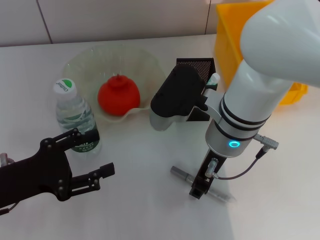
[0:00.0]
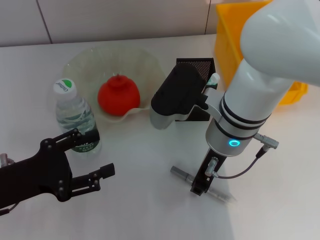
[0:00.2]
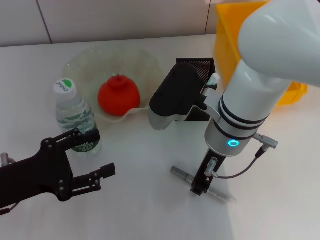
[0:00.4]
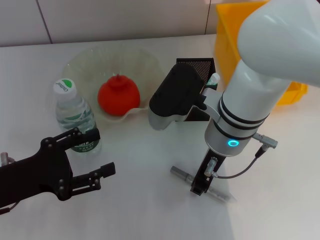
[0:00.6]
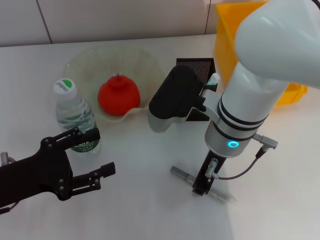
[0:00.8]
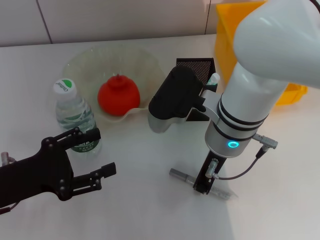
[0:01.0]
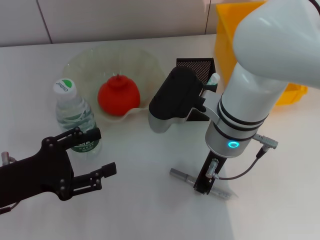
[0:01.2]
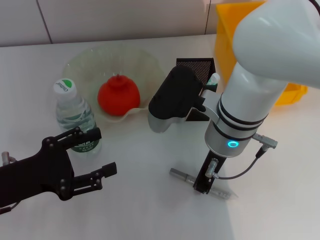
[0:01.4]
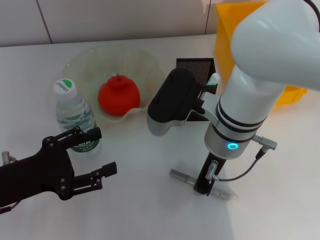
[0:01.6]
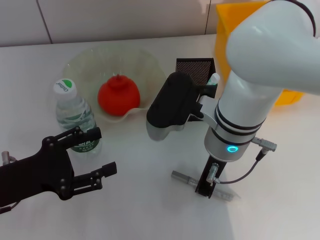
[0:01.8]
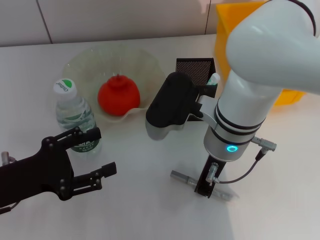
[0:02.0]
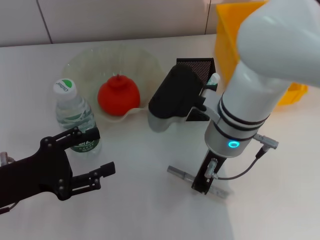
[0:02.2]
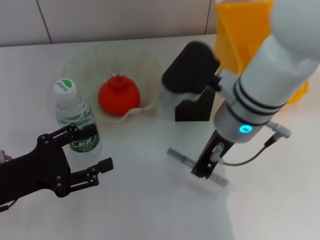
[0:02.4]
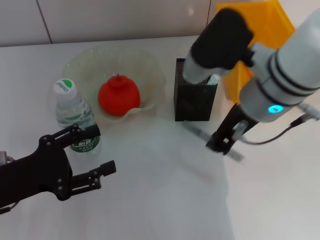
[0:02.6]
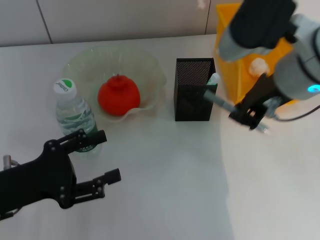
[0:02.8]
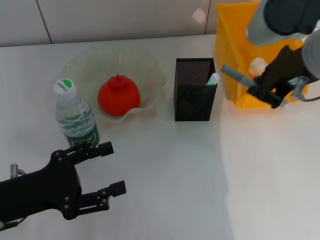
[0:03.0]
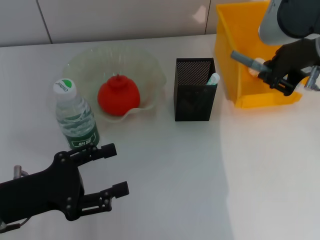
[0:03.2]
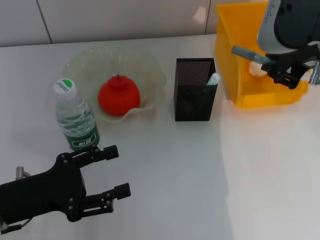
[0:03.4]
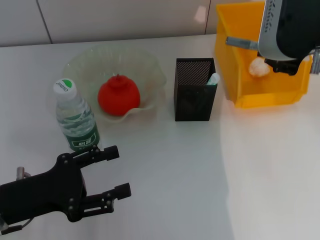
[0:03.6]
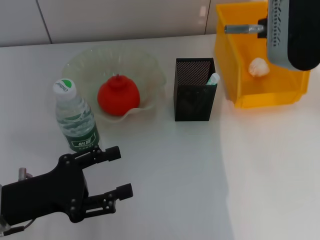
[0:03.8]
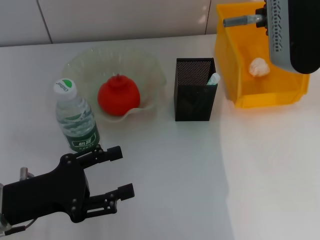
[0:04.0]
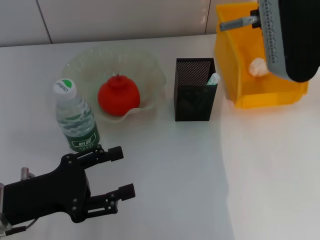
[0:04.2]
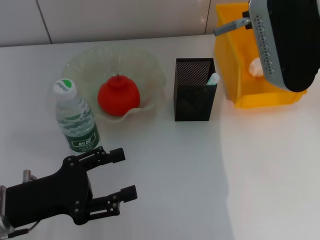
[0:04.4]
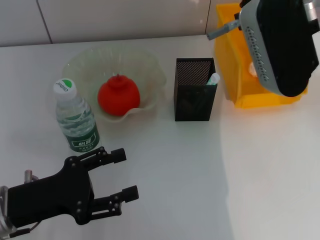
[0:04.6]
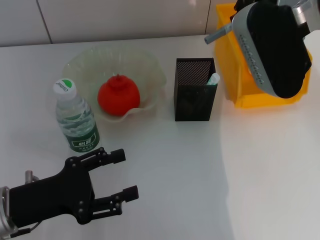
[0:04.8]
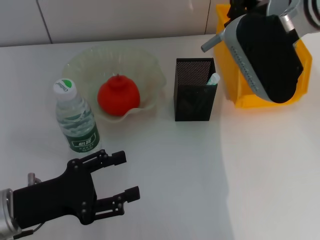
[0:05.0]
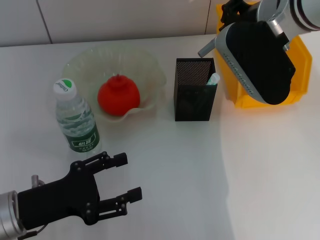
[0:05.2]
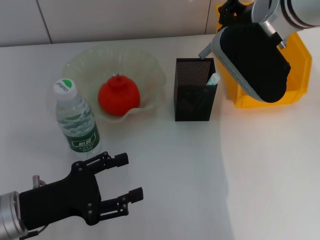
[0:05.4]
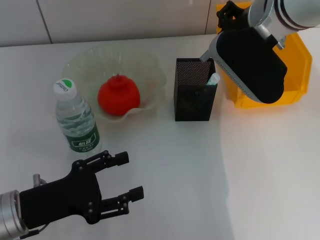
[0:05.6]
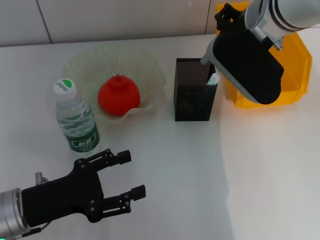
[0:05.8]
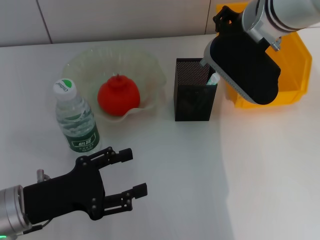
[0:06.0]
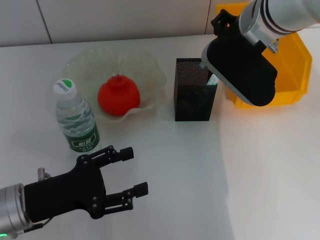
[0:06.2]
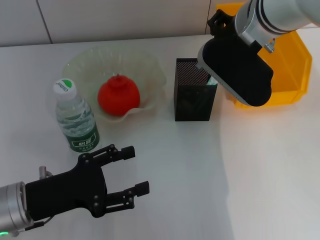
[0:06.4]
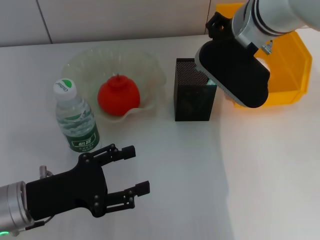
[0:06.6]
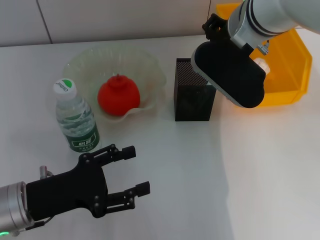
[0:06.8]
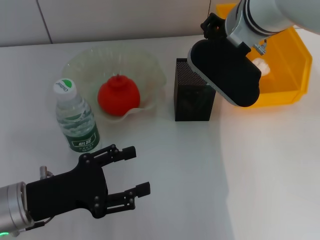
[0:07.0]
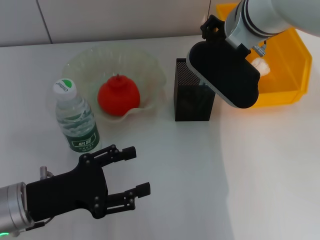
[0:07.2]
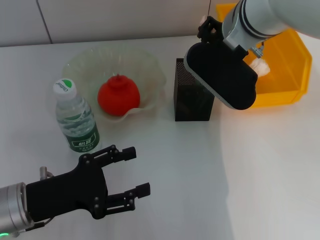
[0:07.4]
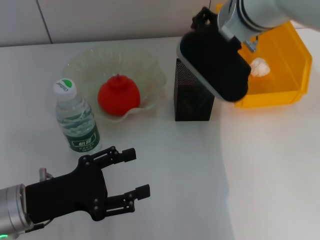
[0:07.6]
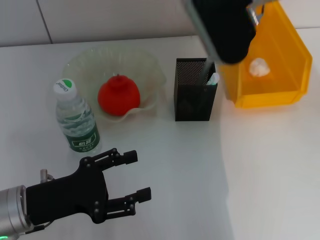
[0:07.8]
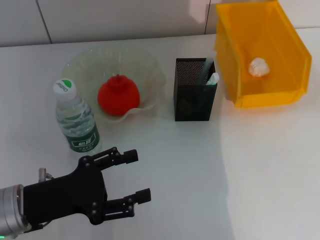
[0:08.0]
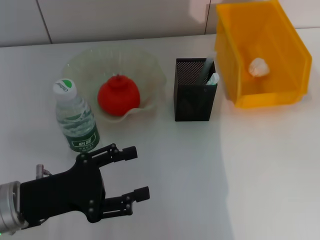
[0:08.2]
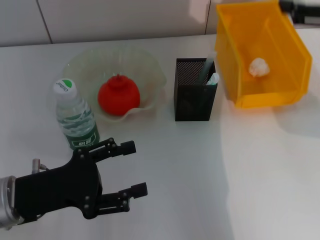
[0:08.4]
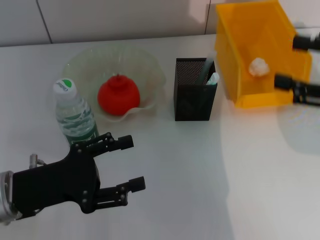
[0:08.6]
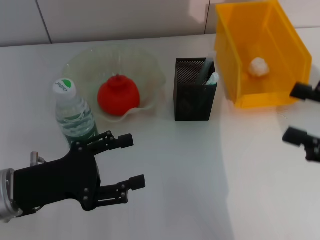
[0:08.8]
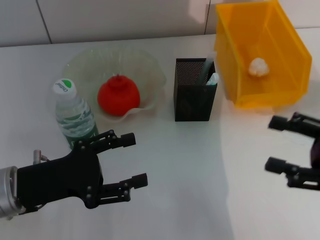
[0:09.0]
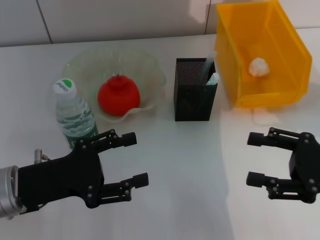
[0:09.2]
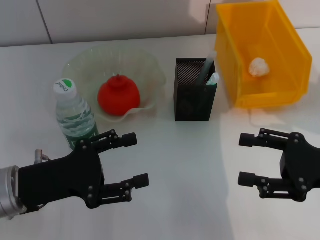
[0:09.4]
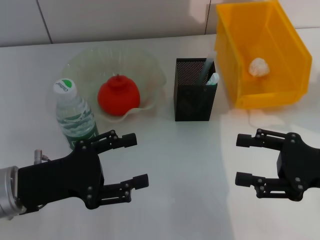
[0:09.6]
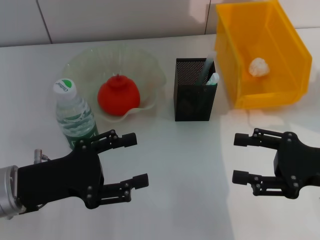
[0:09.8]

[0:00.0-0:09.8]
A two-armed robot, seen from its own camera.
Step, 0:01.8 to 0:07.4: Place the gray glue into the pen holder with the right hand.
0:00.0 to 0:01.4: The right gripper closes up.
0:01.4 to 0:02.8: The right gripper moves upward and to the right, some 15 cm.
0:02.8 to 0:04.2: The right gripper changes place by approximately 5 cm.
0:04.2 to 0:05.6: The right gripper changes place by approximately 5 cm.
0:05.6 to 0:07.0: The grippers make only small movements.
0:07.0 to 0:08.4: The right gripper heads to the right and backward, covering approximately 20 cm, and opens its fingers.
0:08.4 to 0:09.8: The right gripper travels downward by about 20 cm.

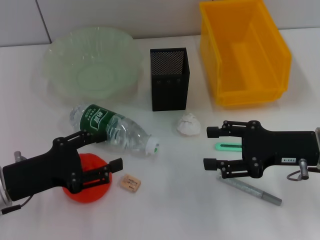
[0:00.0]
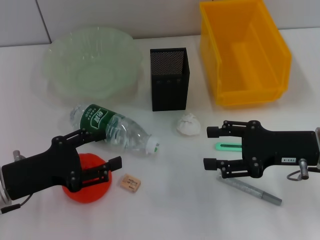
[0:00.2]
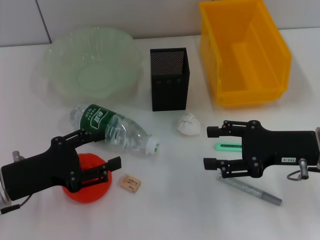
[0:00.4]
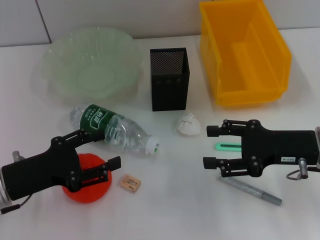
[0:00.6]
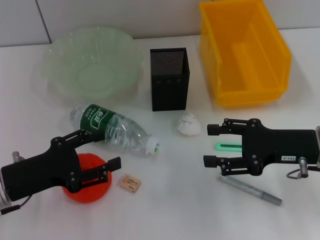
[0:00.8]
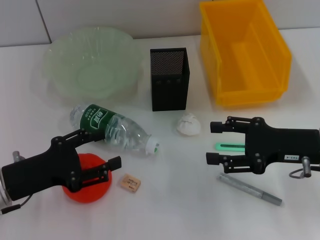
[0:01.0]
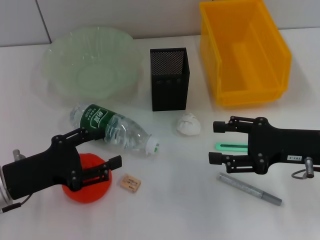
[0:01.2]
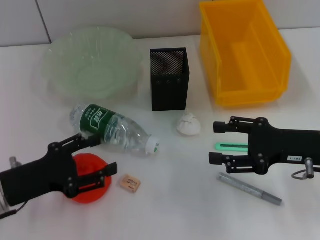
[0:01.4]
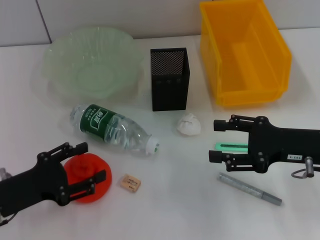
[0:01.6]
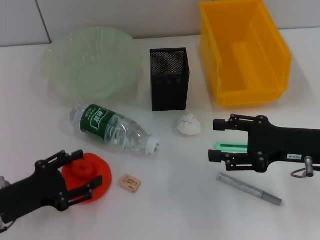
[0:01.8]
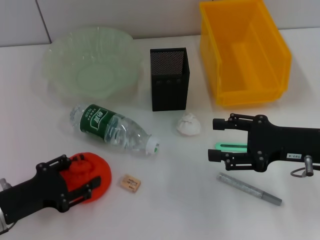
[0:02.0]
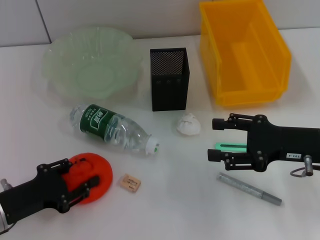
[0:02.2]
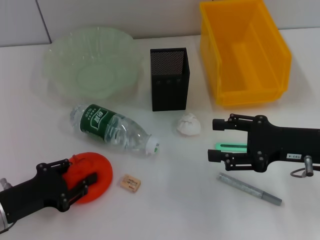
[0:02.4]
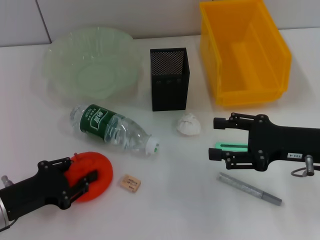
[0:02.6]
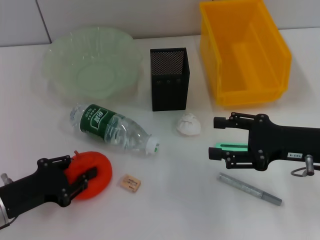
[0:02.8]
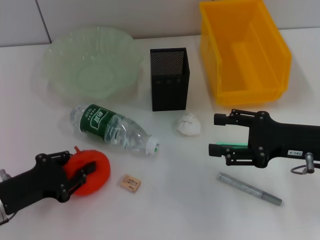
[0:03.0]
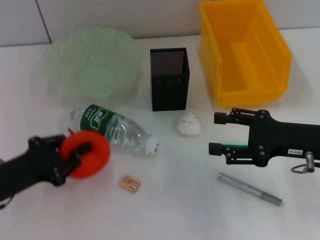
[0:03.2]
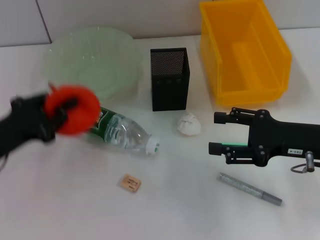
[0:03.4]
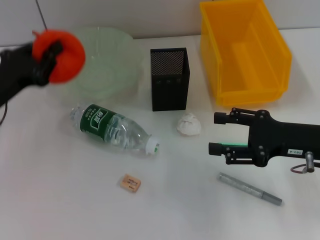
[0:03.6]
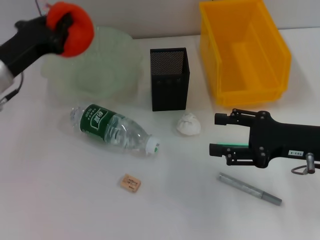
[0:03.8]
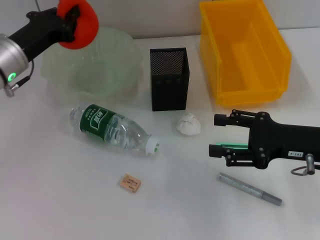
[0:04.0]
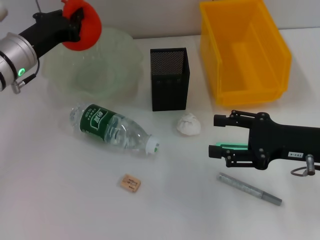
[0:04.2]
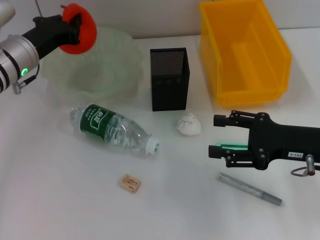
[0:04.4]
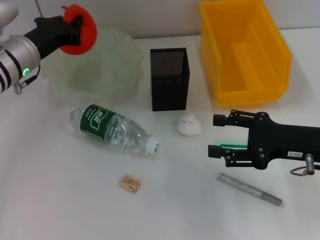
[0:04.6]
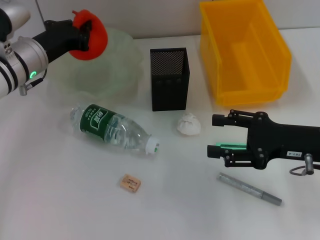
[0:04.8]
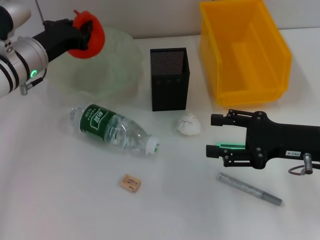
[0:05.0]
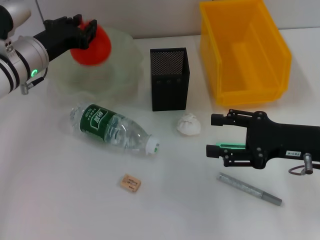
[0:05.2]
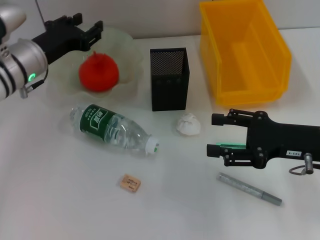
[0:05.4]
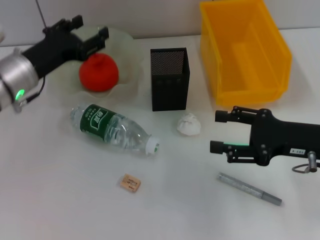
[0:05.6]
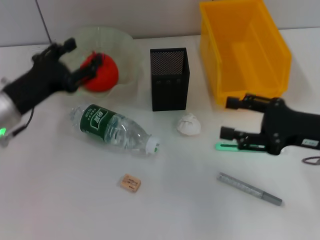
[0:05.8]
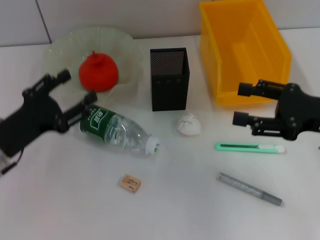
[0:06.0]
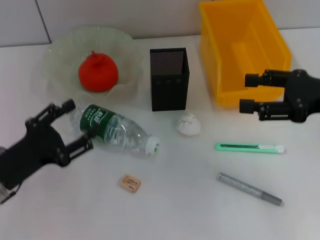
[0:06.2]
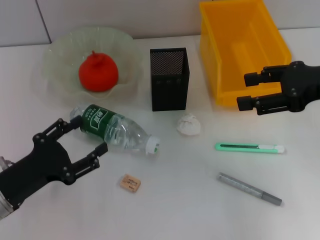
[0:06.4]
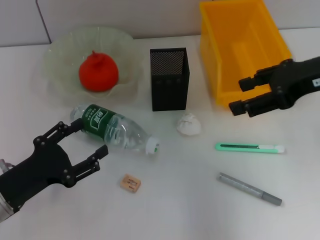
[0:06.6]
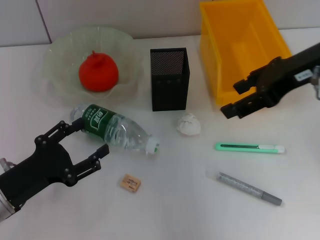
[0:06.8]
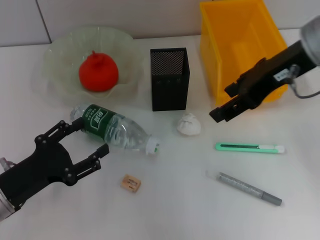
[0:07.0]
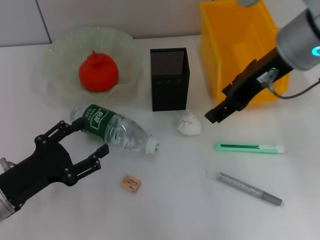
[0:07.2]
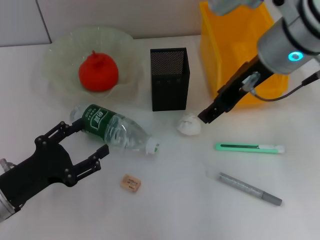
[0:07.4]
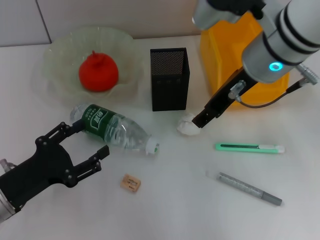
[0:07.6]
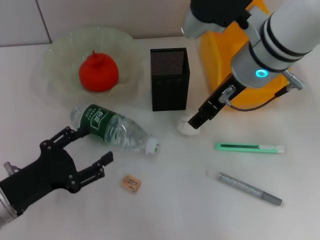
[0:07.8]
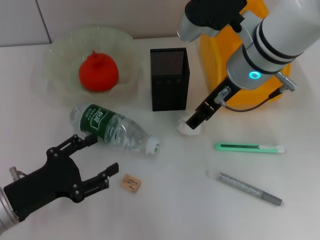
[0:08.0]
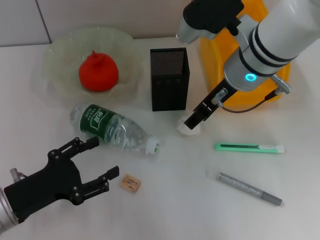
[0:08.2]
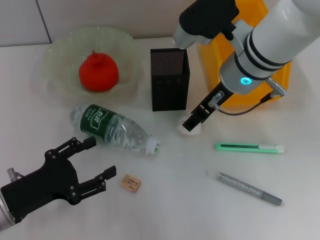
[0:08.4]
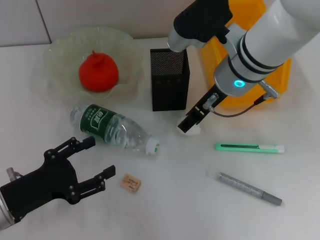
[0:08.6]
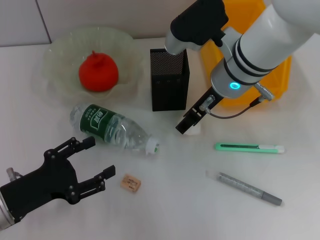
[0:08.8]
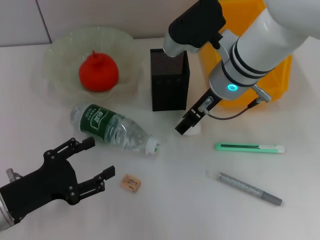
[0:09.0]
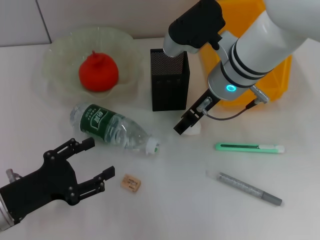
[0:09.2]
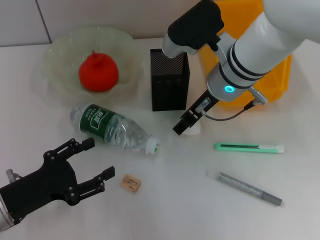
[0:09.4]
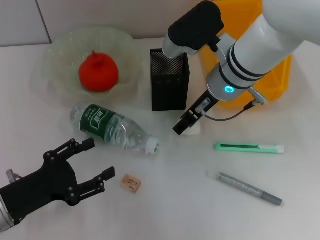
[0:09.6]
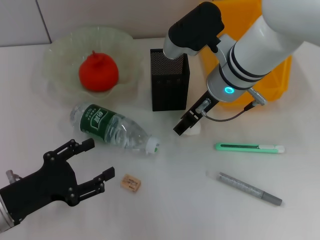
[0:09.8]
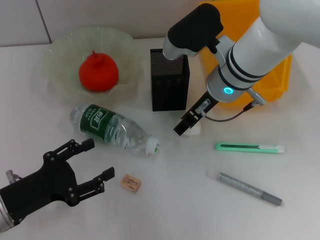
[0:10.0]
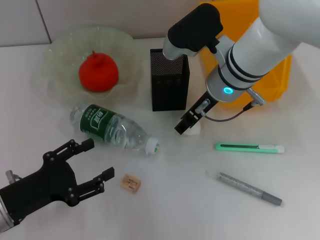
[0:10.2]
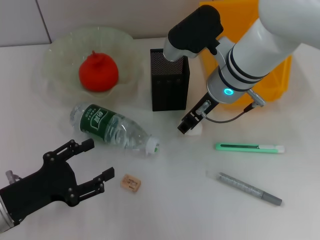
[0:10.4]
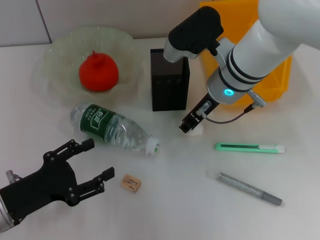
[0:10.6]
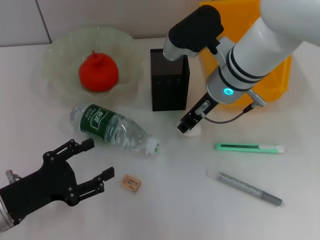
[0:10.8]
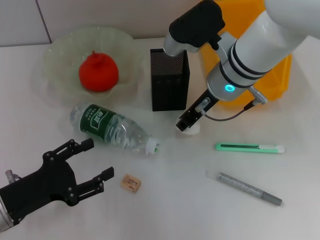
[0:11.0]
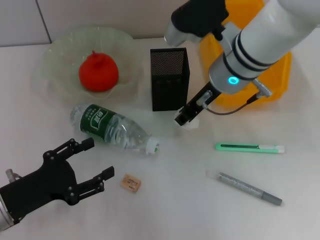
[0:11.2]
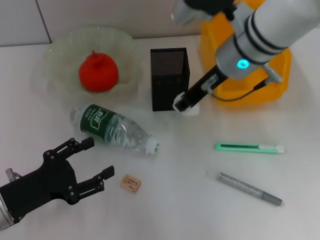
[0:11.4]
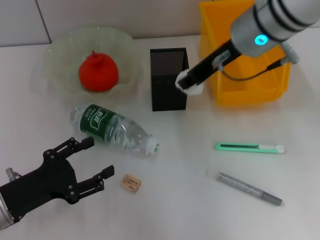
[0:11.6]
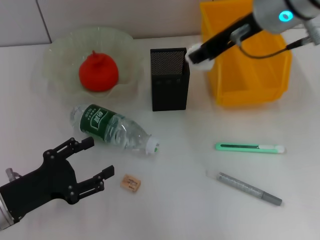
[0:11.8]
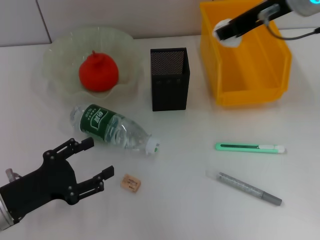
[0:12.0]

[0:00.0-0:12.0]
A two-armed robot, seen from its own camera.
Step, 0:00.0 to 0:02.4: Grab the orange with the left hand.
Step, 0:02.6 to 0:05.4: Place the orange into the fruit bowl with the left hand.
Step, 0:05.6 to 0:10.6: Grab the paper ball with the right hand.
0:00.0 to 0:01.6: There are only small adjustments of the grippers.
0:01.6 to 0:03.0: The left gripper closes its fingers.
0:03.0 to 0:04.4: The left gripper is displaced forward and upward by approximately 20 cm.
0:04.4 to 0:06.0: The left gripper is displaced backward by about 15 cm, and opens its fingers.
0:06.0 to 0:07.6: The left gripper is displaced backward by some 5 cm. Meanwhile the right gripper heads to the left, upward and forward, covering about 20 cm.
0:07.6 to 0:09.0: The right gripper goes some 5 cm downward.
0:09.0 to 0:10.4: The grippers make only small movements.
0:10.4 to 0:12.0: The right gripper goes approximately 15 cm upward and to the right, and closes its fingers.
